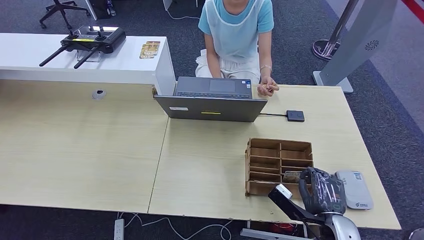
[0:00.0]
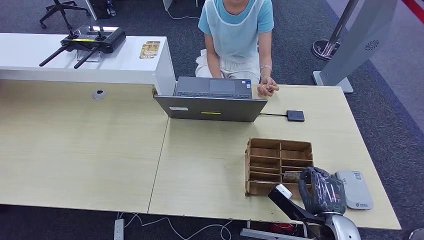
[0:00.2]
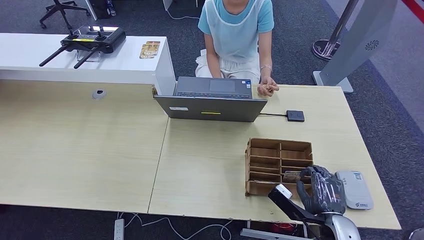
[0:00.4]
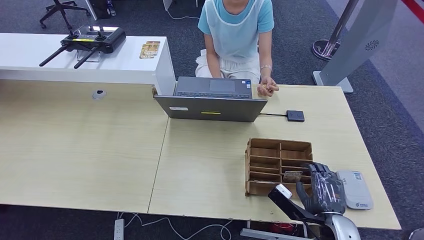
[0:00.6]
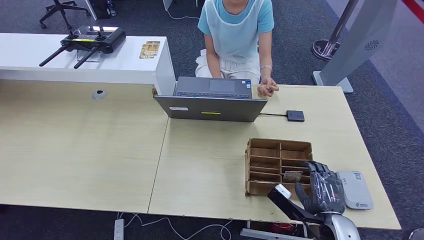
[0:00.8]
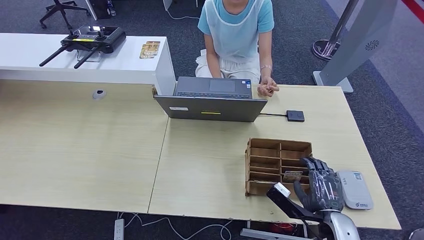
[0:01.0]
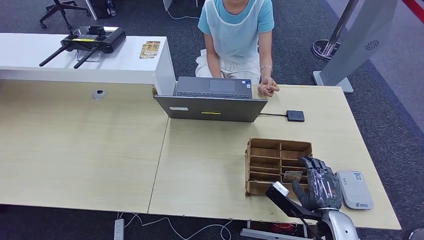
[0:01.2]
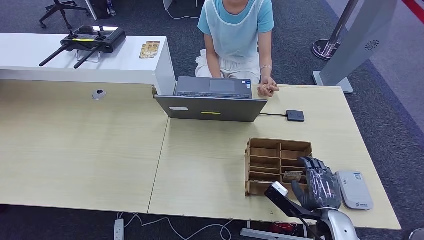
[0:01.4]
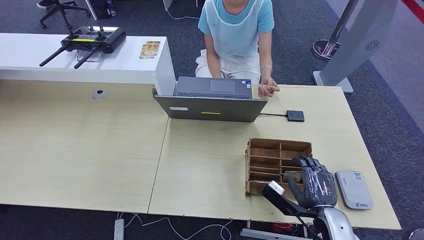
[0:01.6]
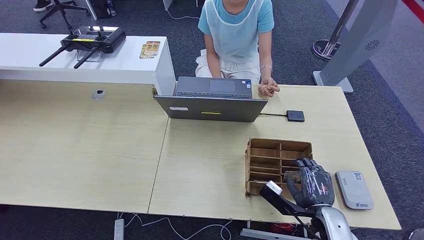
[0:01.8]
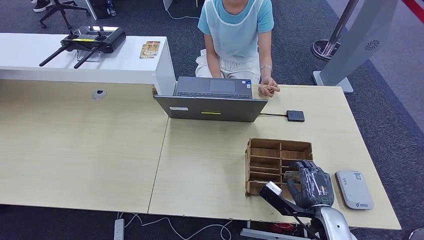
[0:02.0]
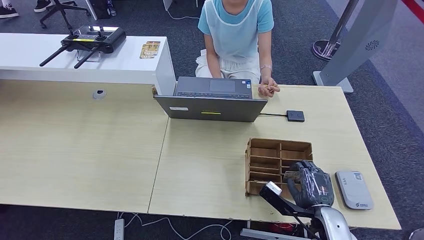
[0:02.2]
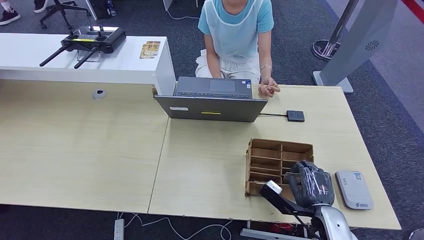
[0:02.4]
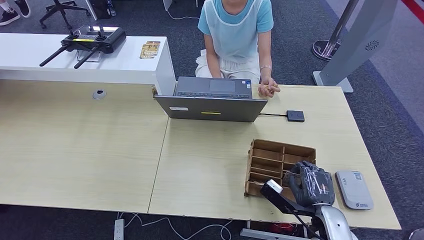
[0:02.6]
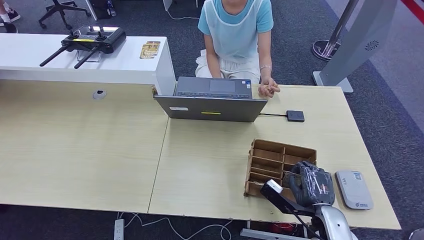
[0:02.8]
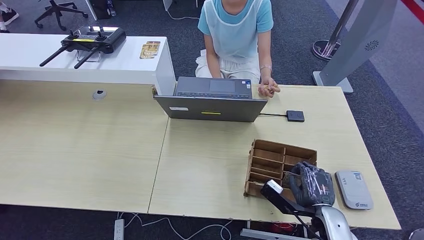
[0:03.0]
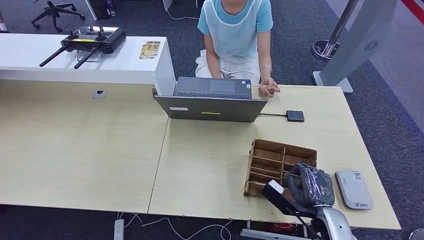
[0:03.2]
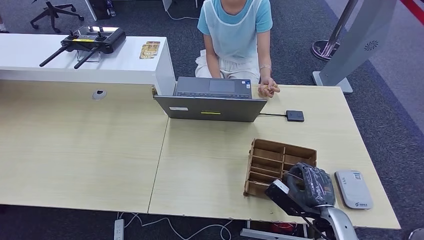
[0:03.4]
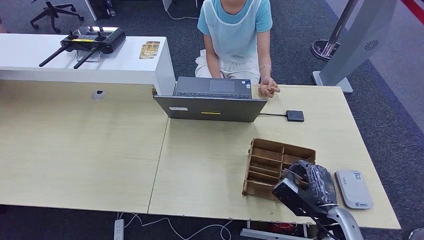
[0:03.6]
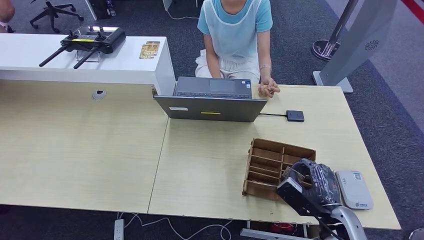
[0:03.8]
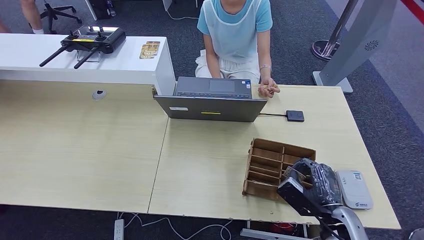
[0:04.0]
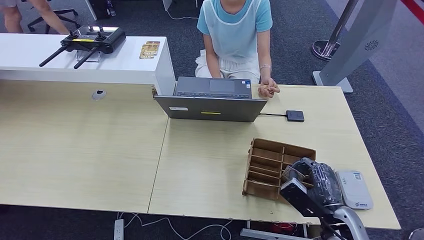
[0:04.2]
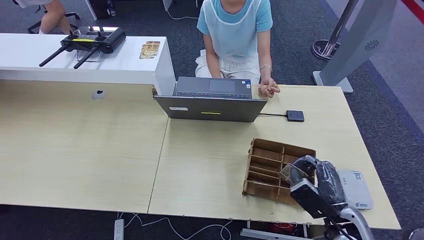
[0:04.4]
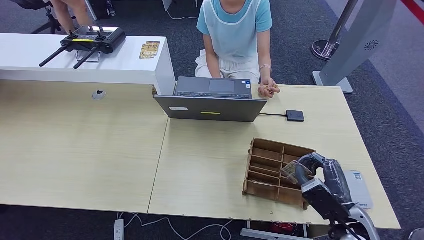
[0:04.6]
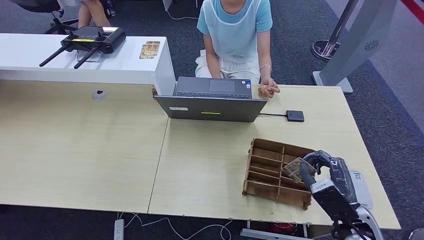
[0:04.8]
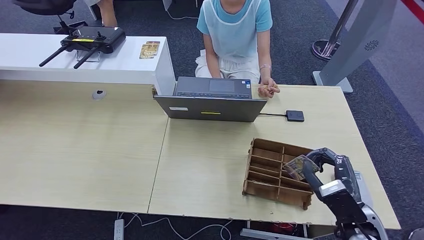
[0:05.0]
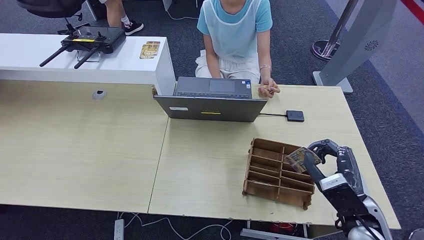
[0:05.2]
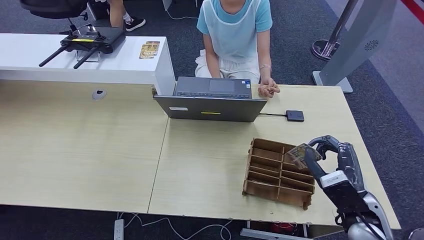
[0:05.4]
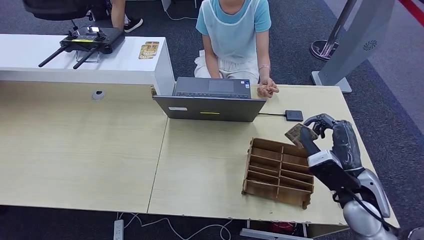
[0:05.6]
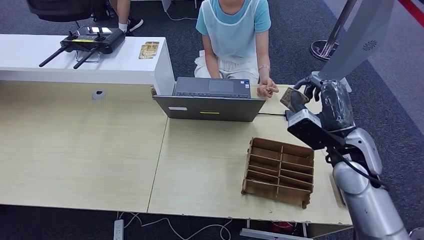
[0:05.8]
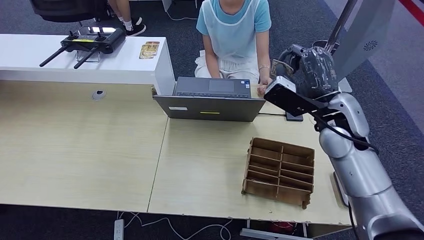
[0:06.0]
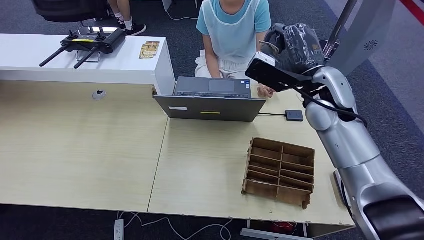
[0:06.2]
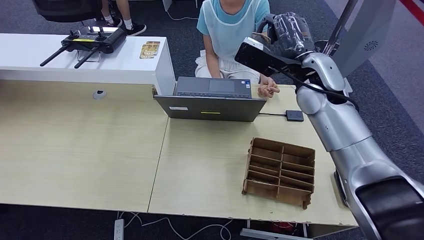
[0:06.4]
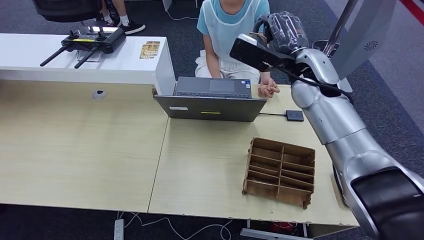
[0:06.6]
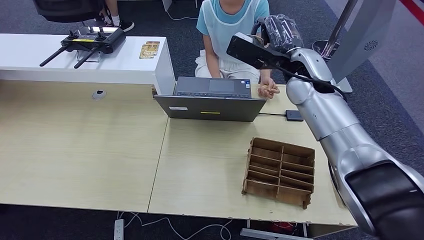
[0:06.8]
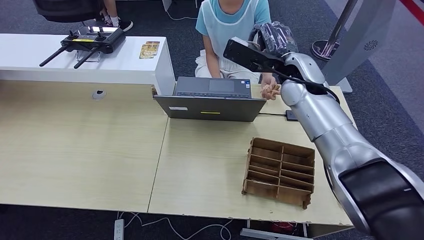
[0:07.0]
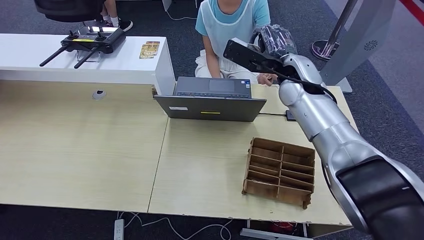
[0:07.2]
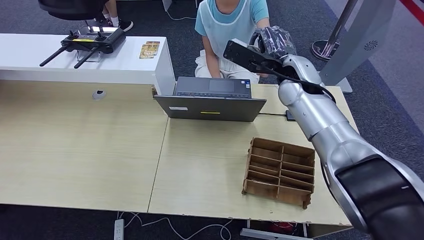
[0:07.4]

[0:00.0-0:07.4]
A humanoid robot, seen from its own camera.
Step, 0:00.8 to 0:05.6: Pick up the room key from the key card box.
Step, 0:05.8 to 0:07.4: Hand the room key to the person.
0:00.0 to 0:01.4: Neither hand changes place.
0:01.4 to 0:03.0: Both hands stay put.
0:04.4 to 0:06.0: The right hand goes approximately 25 cm upward and forward.
0:06.0 to 0:07.4: The right hand is displaced forward and to the left by roughly 10 cm.
